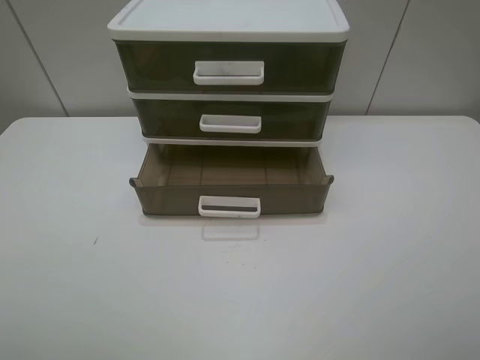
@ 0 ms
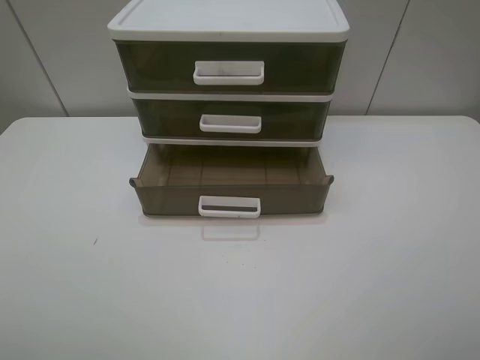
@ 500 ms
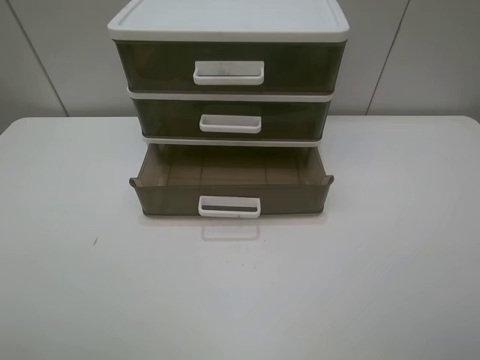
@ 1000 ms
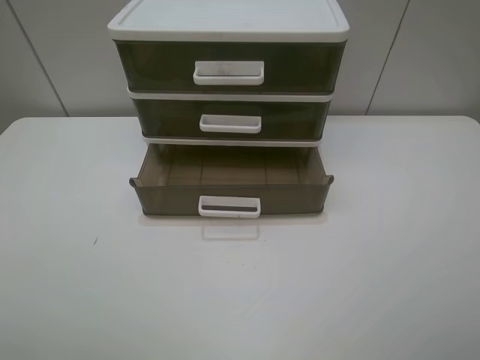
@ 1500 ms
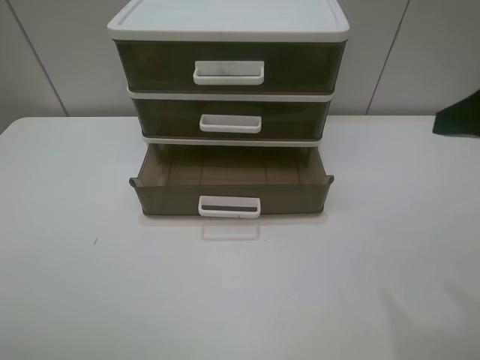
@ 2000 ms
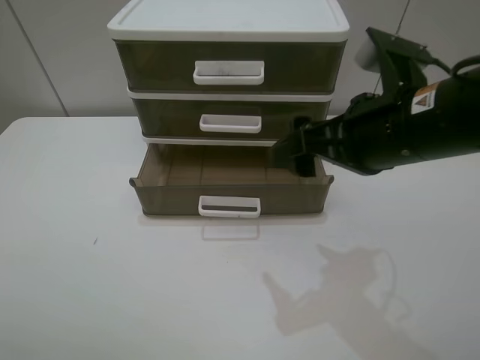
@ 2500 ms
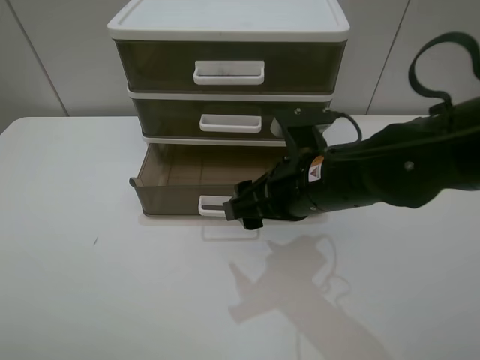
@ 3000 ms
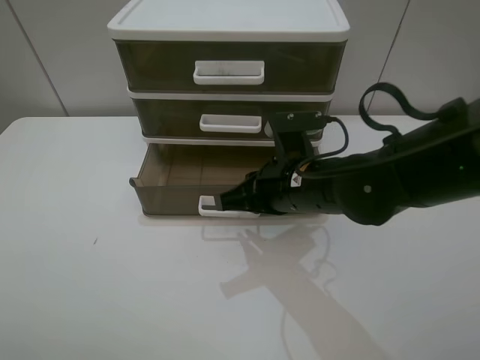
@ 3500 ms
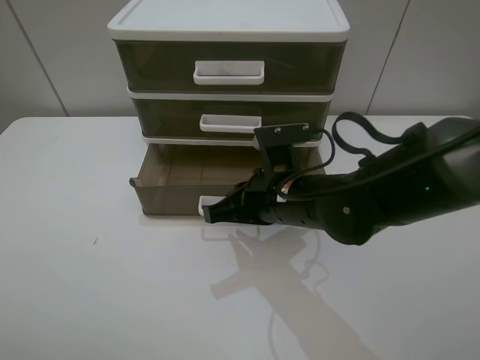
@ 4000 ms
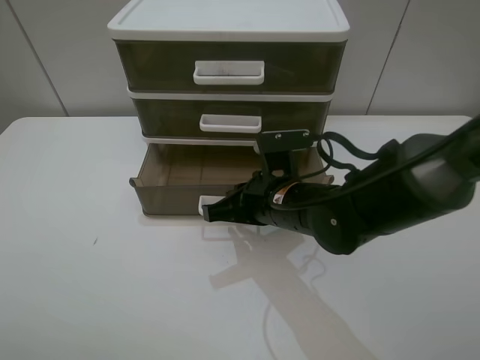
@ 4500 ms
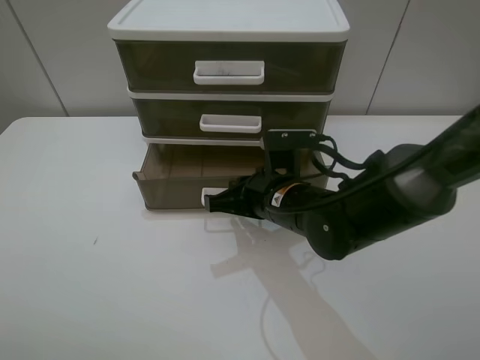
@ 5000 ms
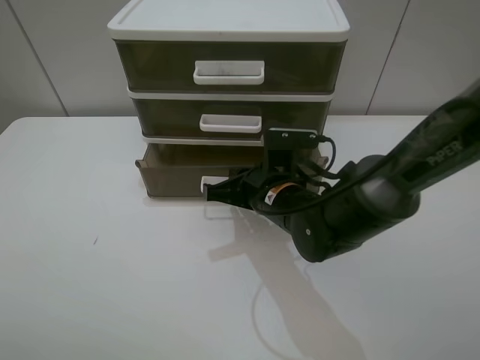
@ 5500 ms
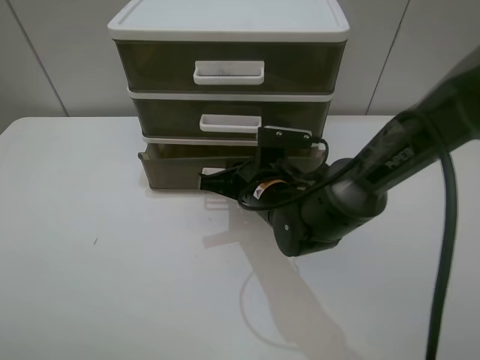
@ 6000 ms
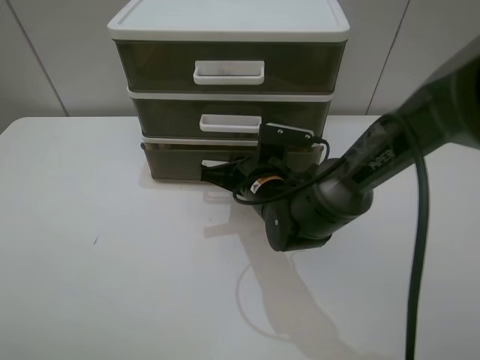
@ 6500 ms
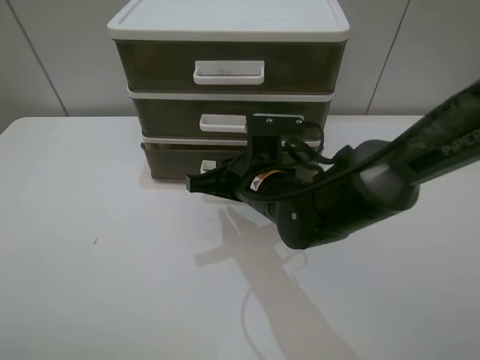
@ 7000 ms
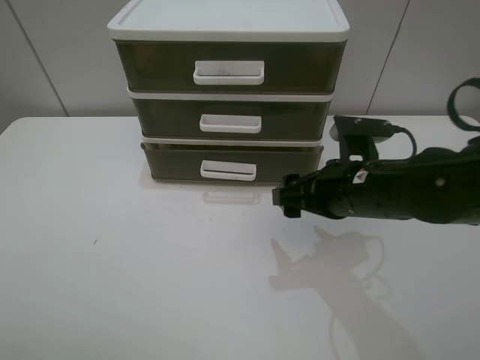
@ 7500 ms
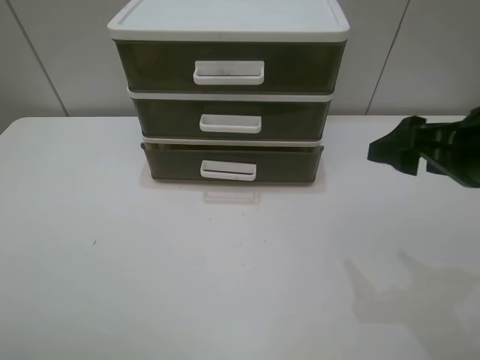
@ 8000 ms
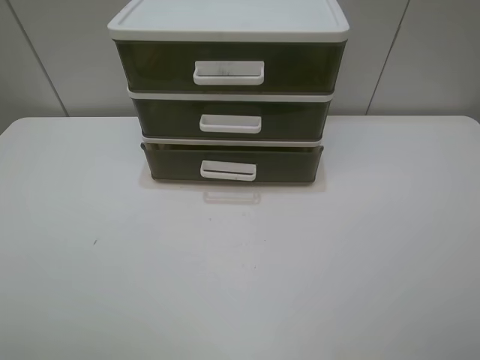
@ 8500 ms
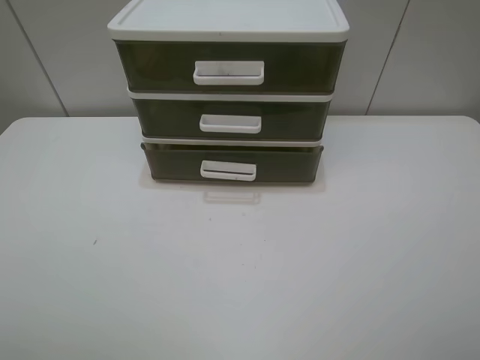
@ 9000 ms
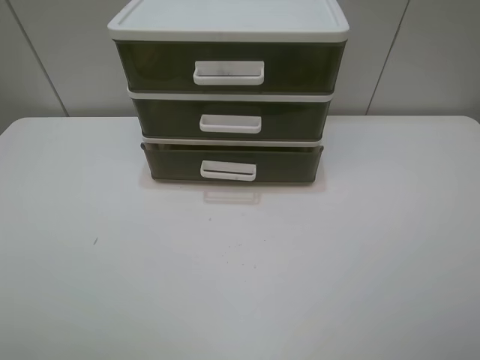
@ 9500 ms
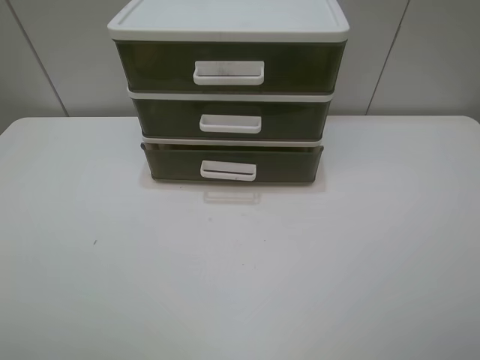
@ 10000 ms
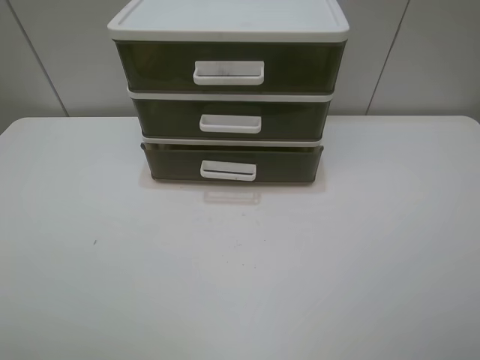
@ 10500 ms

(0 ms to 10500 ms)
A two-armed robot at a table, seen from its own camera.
Task of the whole recording: close the bottom drawer.
Step, 0 ms - 4500 ms: Use the right gripper to contact the bottom layer of the storage cabinet.
Step, 5000 ms - 6500 ms: Push the bottom drawer closed.
0 ms - 2000 ms: The right gripper heads forward, covering roughly 15 cm.
2000 ms - 4000 ms: The right gripper moves to the left and downward, about 25 cm, and closes up.
4000 ms - 6500 ms: The right gripper moves forward and downward, approximately 10 cm.
6500 ms - 8500 ms: The right gripper travels upward, to the right and backward by approximately 40 cm, and opens.
